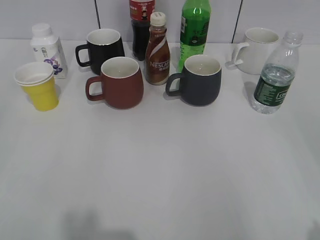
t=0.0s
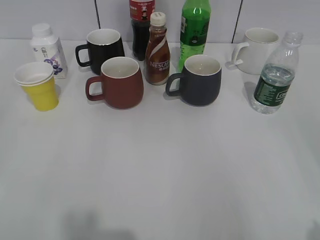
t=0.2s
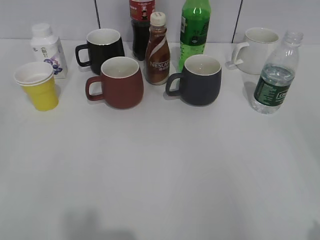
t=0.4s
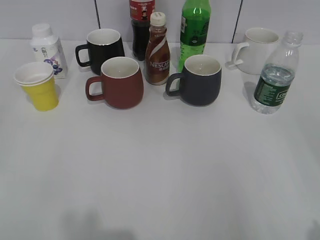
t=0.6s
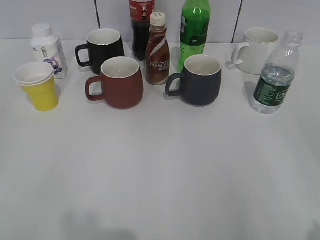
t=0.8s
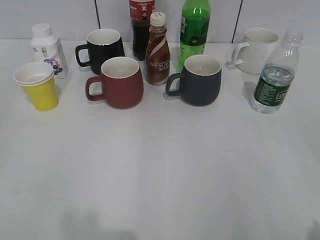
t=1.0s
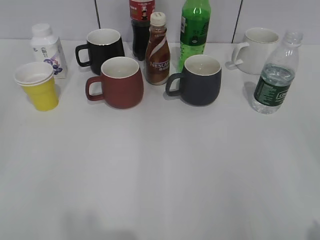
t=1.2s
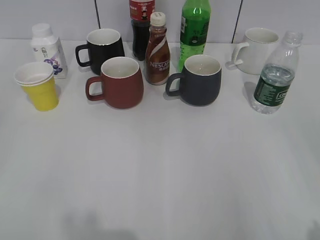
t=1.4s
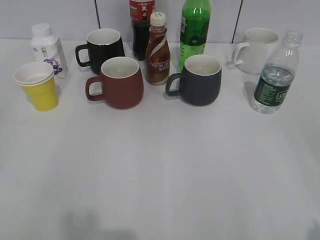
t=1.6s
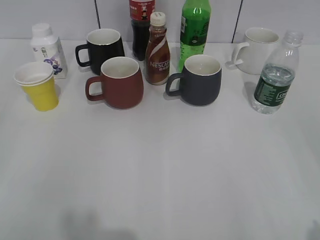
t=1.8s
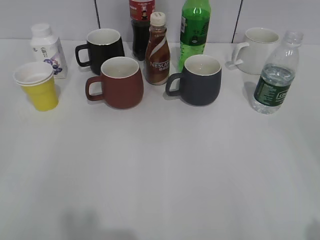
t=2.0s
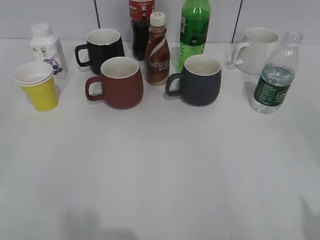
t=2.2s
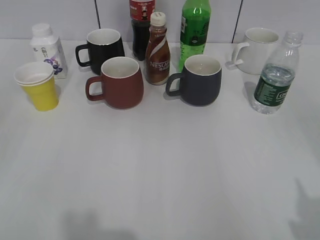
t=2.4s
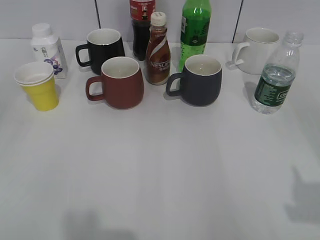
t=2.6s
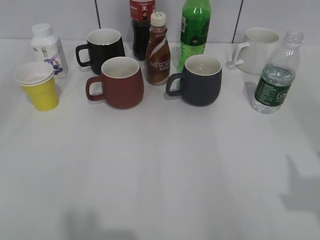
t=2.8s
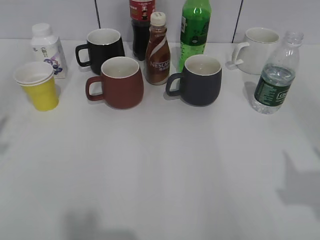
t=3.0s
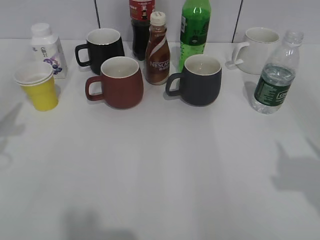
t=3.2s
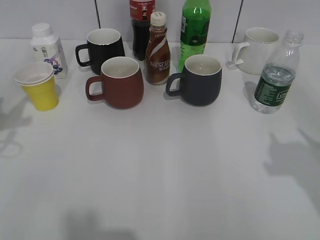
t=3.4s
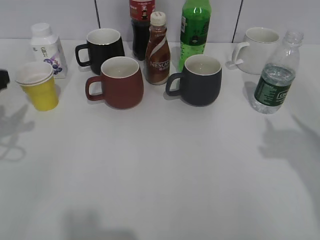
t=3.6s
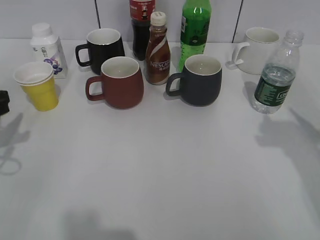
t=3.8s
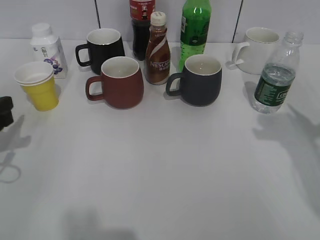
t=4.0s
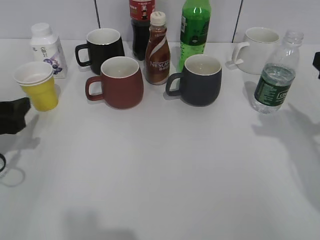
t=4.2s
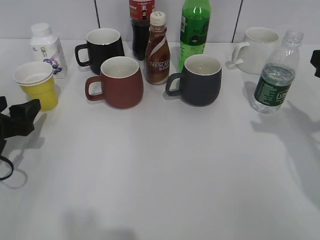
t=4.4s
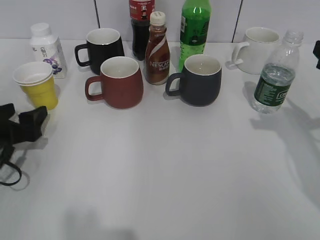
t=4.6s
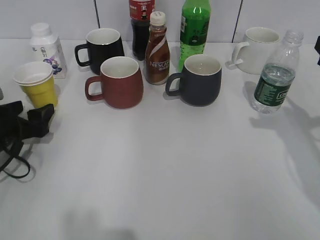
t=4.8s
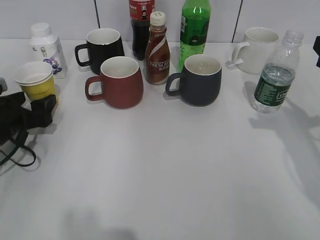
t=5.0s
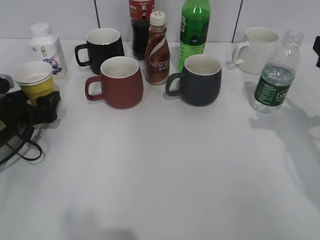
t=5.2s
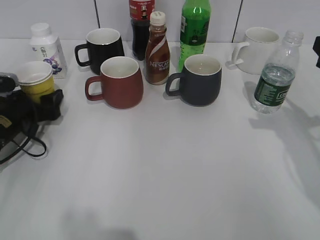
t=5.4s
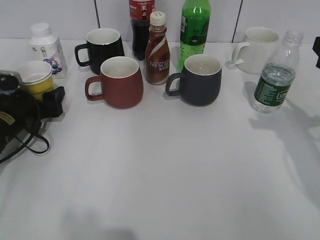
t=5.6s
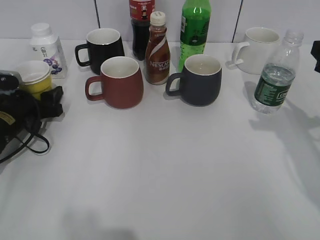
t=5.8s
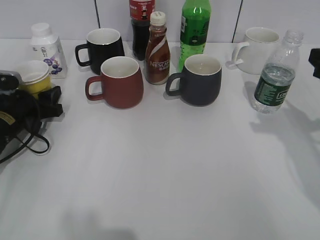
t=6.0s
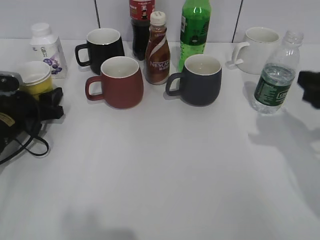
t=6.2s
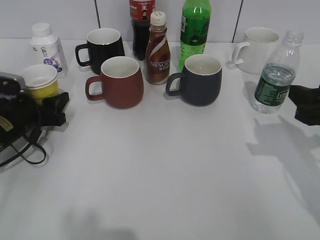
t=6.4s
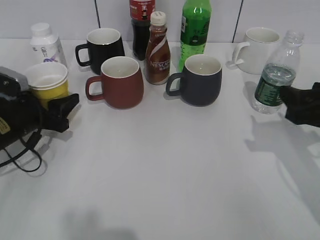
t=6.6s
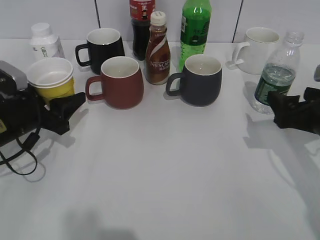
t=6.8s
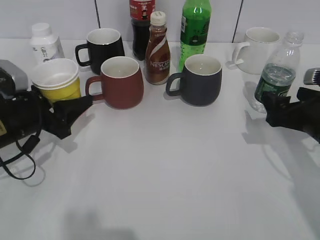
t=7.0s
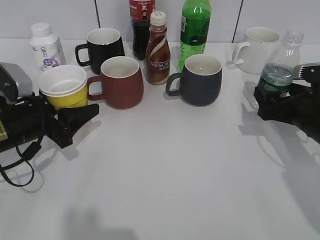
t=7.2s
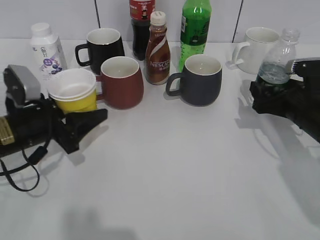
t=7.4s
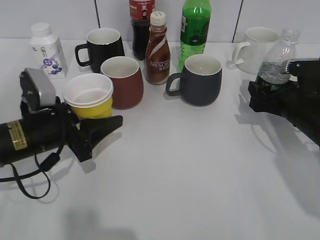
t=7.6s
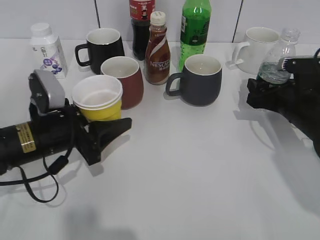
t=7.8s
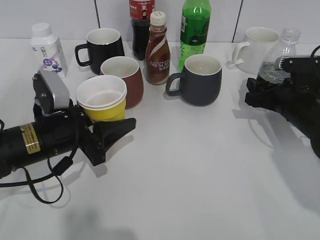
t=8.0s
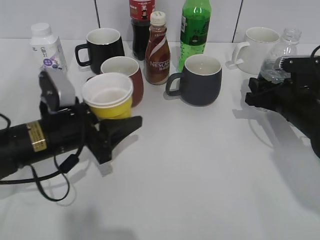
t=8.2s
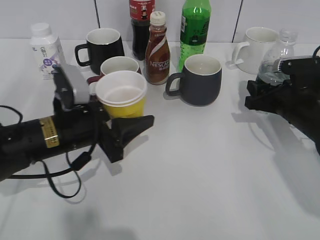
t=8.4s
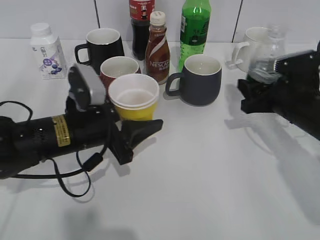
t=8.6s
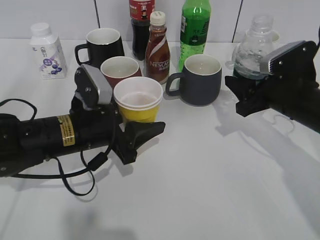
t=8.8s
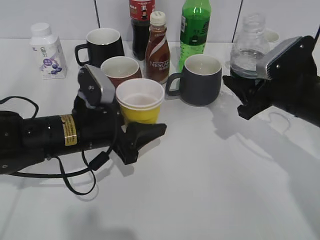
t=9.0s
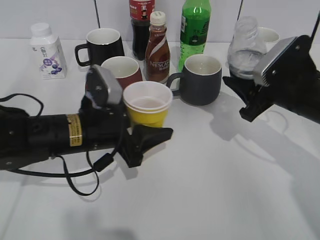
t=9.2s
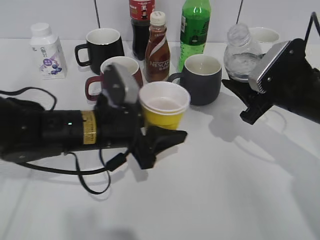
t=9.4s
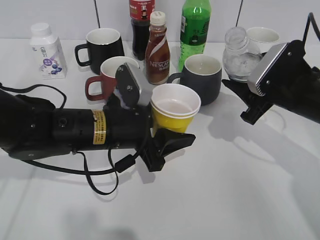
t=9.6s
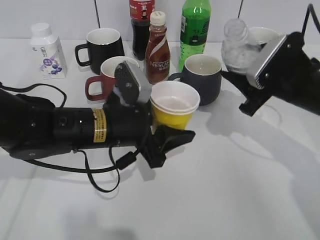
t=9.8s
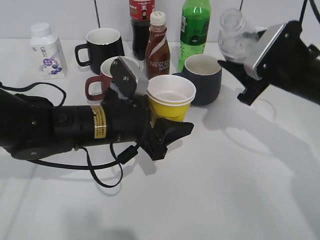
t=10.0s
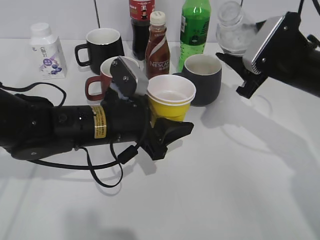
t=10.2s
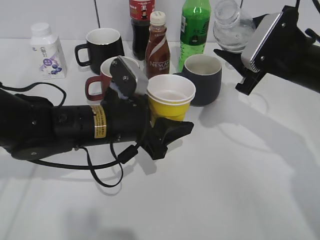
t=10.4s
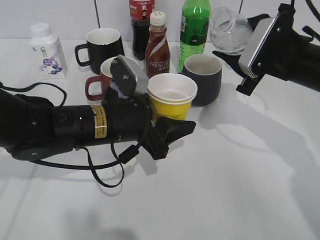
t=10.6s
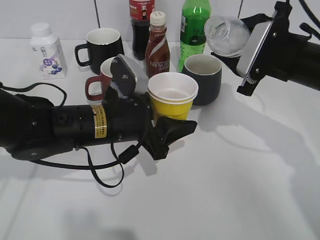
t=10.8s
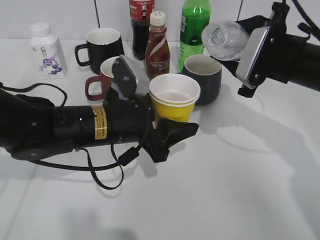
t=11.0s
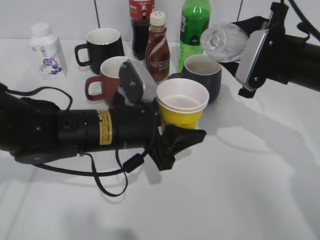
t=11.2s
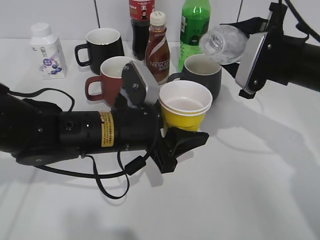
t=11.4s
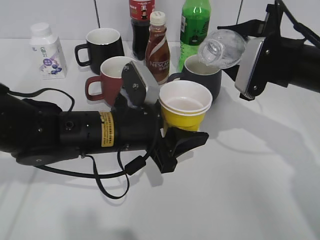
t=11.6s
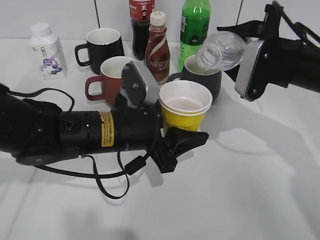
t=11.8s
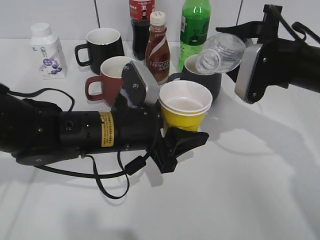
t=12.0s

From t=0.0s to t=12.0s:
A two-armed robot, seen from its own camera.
Step, from t=2.0s to t=5.8s: Grasp the yellow paper cup with left gripper.
Step, from t=6.0s to t=7.8s: Grasp the bottle with water with right gripper.
From t=1.6s to t=3.0s: The right gripper moves forward, about 10 cm, and closes up.
From t=3.0s to t=4.4s: The left gripper is displaced downward and forward by roughly 20 cm, and opens its fingers; the right gripper is displaced forward and downward by some 20 cm.
From t=4.4s to t=6.0s: The left gripper heads forward and downward, covering roughly 10 cm, and closes up.
From t=6.0s to t=7.6s: The right gripper travels downward and forward by some 15 cm, and opens up, while the left gripper is displaced to the right and backward by about 10 cm.
From t=7.6s to t=9.0s: The right gripper changes place by about 5 cm, and closes. The left gripper heads to the right, covering approximately 5 cm.
From t=9.0s to t=10.4s: The right gripper ends up about 5 cm from where it was.

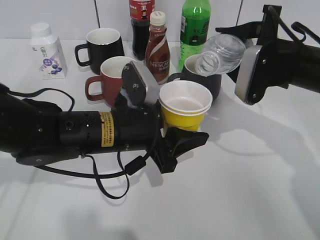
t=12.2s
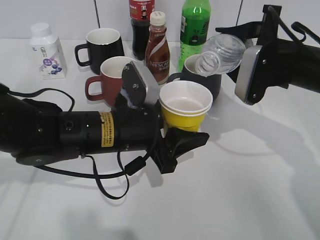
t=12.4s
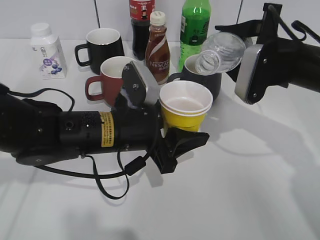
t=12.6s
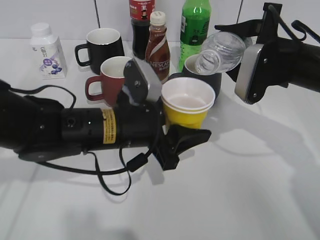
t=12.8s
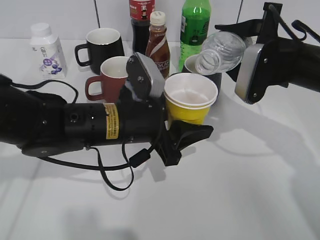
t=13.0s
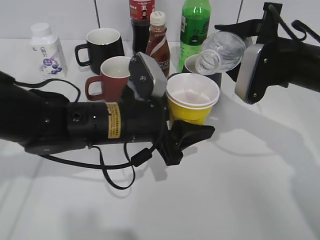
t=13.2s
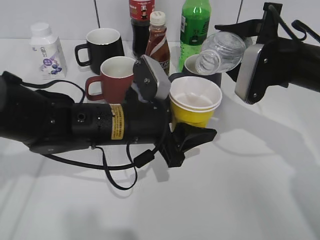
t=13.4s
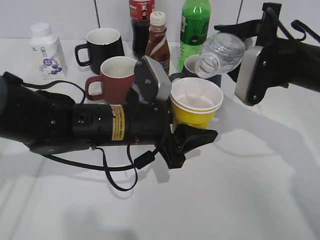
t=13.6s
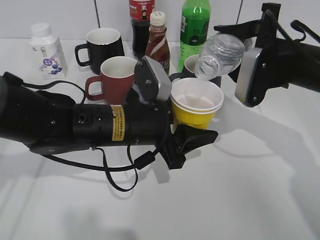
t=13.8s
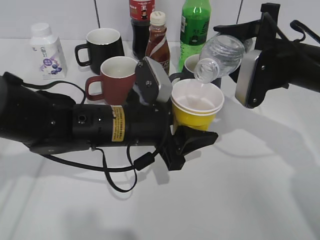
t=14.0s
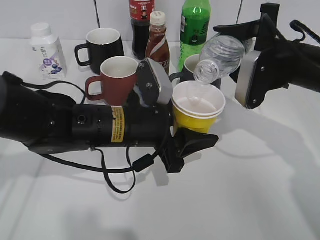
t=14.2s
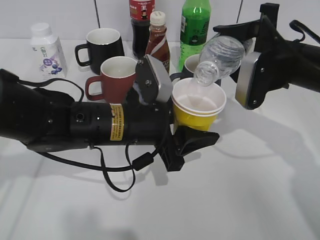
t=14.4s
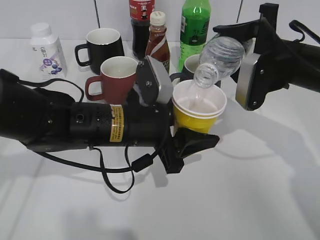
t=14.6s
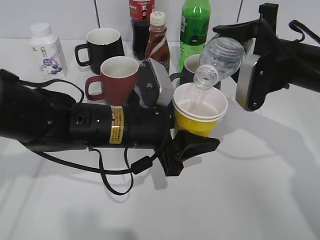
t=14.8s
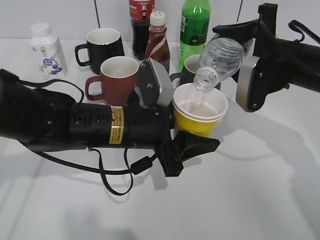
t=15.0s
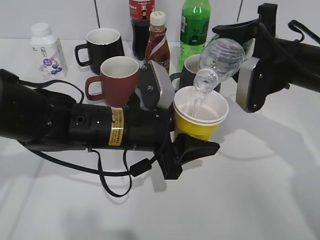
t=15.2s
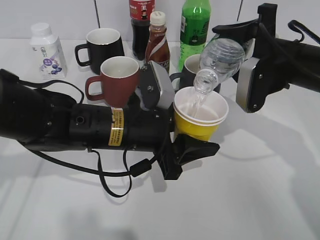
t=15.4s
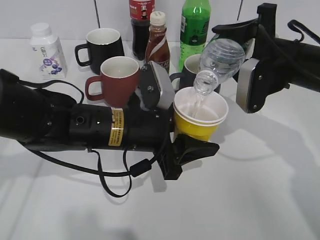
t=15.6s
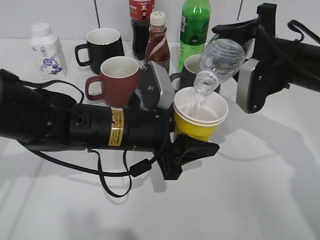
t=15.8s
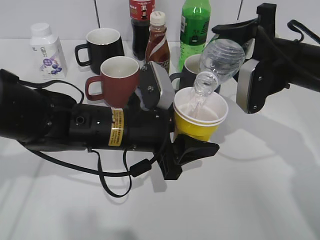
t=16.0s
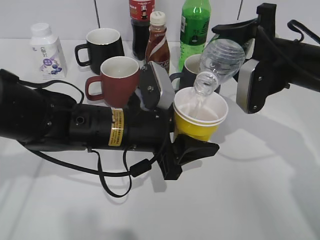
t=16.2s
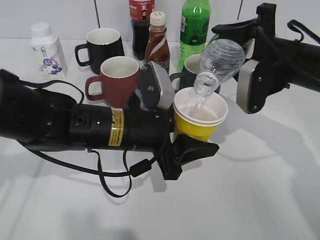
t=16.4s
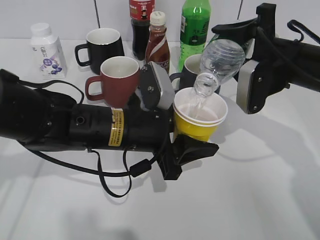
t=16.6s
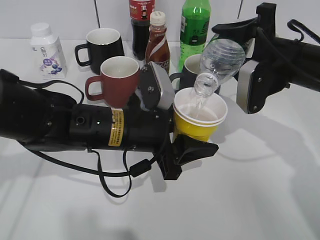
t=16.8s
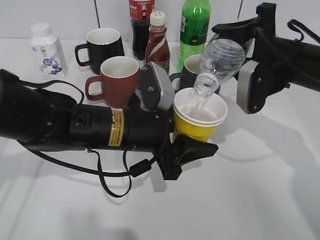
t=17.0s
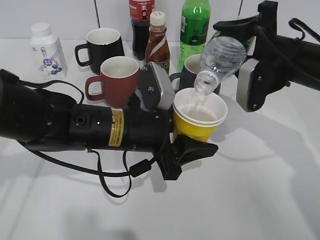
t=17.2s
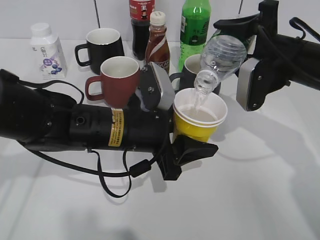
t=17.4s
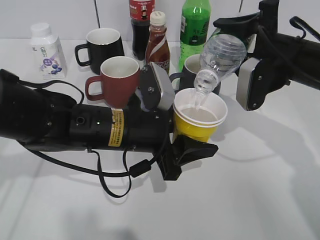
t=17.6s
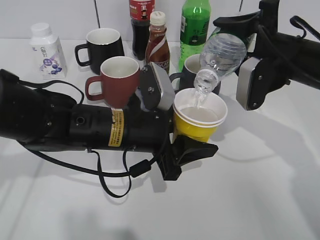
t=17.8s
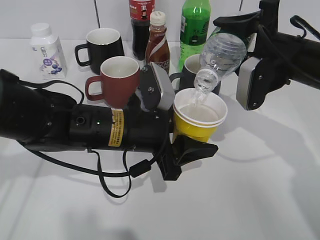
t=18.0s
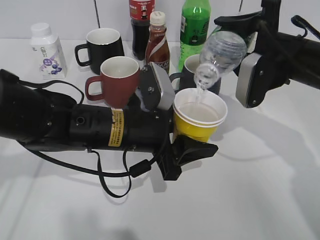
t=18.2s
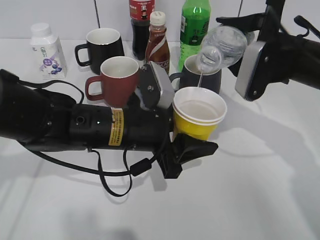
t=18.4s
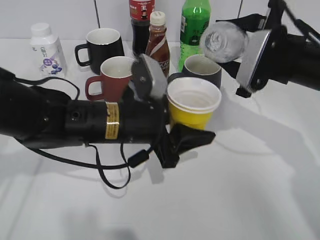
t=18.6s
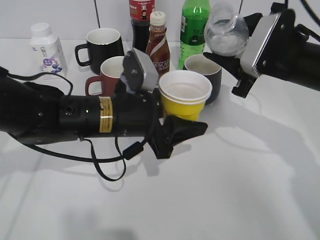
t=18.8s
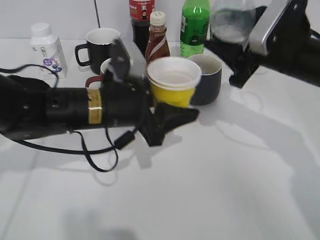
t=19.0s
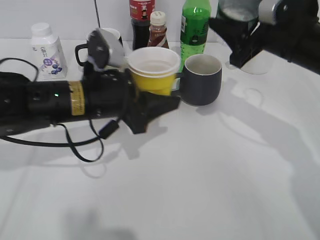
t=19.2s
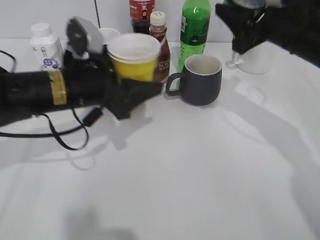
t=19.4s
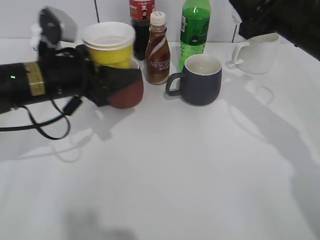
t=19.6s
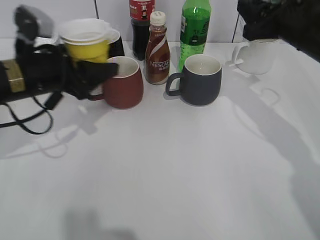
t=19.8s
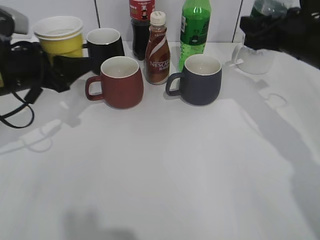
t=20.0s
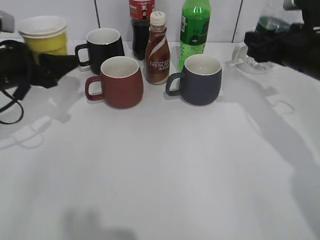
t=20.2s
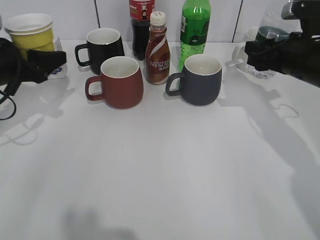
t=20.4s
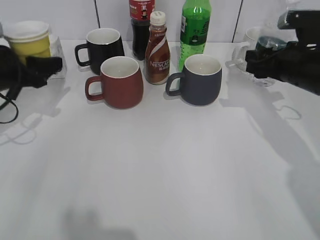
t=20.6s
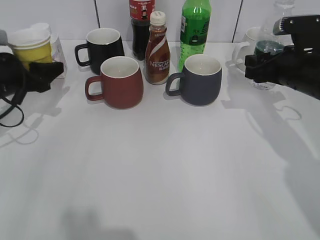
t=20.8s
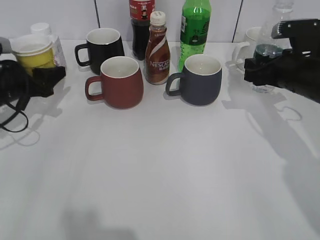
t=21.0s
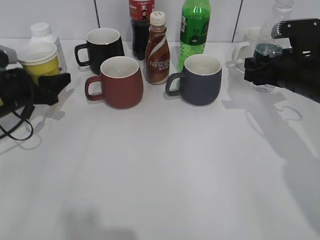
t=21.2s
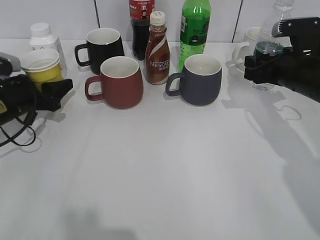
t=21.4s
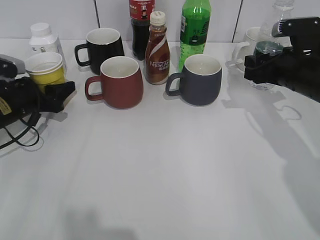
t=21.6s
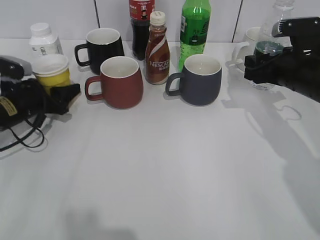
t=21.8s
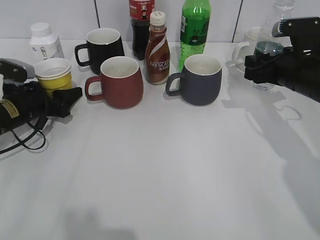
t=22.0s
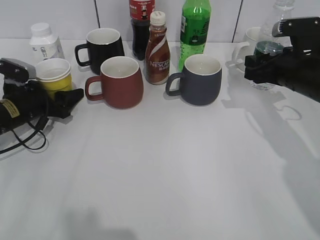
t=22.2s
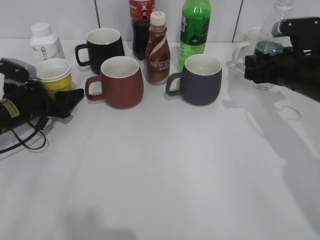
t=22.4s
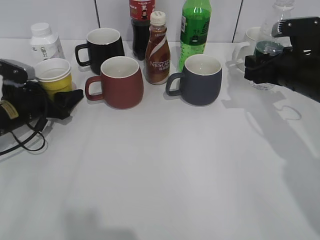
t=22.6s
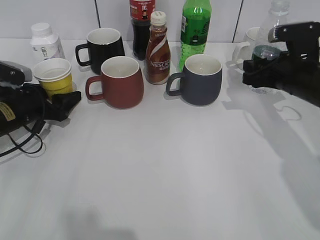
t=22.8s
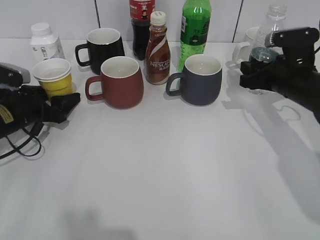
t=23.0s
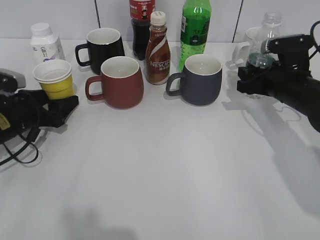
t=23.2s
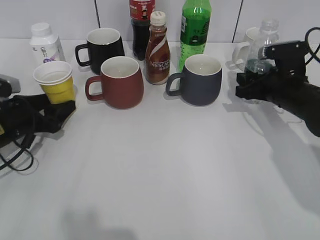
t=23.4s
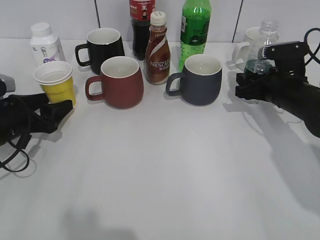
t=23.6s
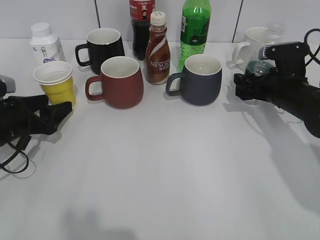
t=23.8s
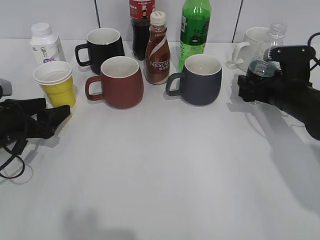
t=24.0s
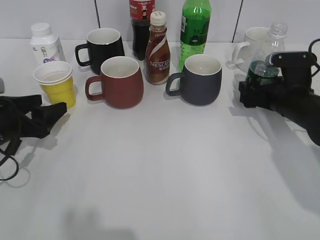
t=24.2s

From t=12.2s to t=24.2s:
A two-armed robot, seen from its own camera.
Step, from t=12.2s to t=19.0s: Pour the water from bottle to cup with right gripper.
Step, from t=19.4s to t=22.6s: Place the yellow paper cup on the table with left gripper.
Step, from t=22.8s to t=24.2s: Place the water bottle on the table with right gripper.
From t=12.2s to t=15.2s: There are only small adjustments of the grippers.
From t=15.2s to t=16.6s: Both grippers stay put.
From t=16.6s to t=18.2s: The two grippers keep their place.
From t=18.2s to t=19.8s: The left gripper goes some 15 cm to the left and forward.
From t=19.8s to t=21.2s: The left gripper moves to the left and downward, roughly 10 cm; the right gripper moves downward, some 5 cm.
From t=21.2s to t=22.6s: The left gripper opens up.
From t=22.6s to t=24.2s: The right gripper shifts about 5 cm downward, and opens its fingers. The left gripper heads backward, covering about 10 cm.
